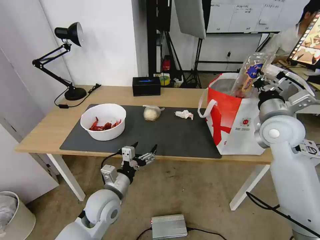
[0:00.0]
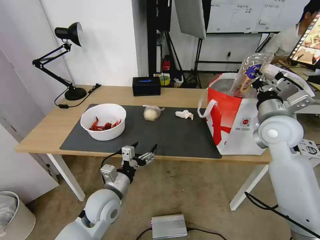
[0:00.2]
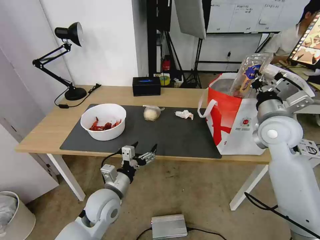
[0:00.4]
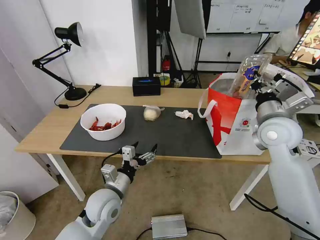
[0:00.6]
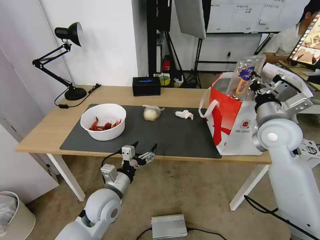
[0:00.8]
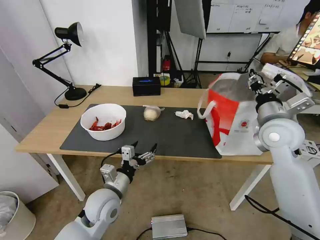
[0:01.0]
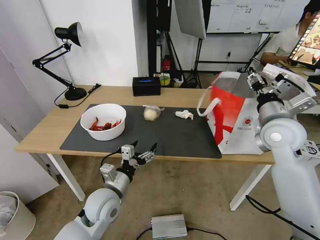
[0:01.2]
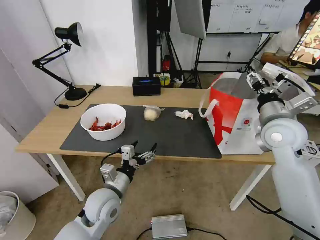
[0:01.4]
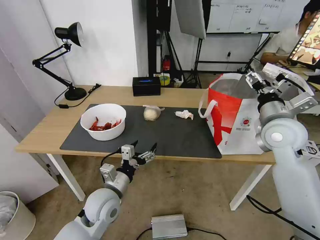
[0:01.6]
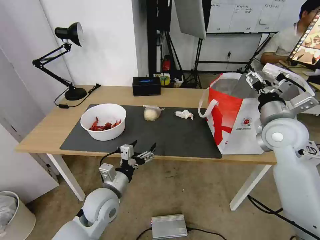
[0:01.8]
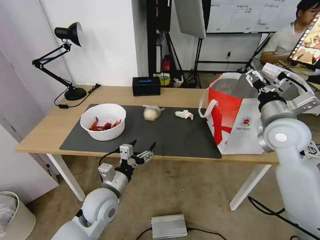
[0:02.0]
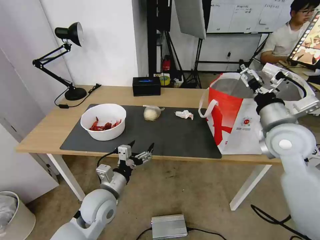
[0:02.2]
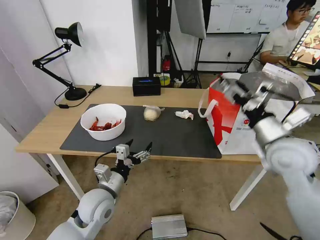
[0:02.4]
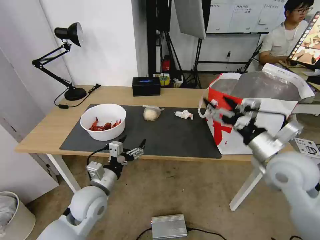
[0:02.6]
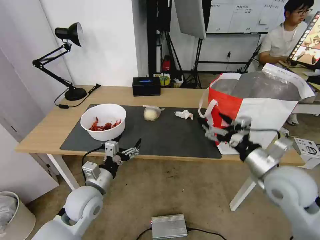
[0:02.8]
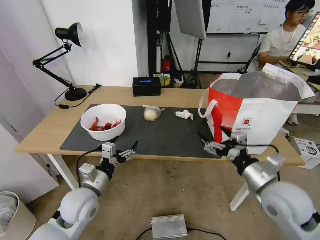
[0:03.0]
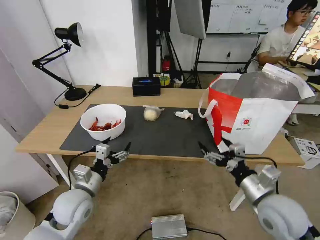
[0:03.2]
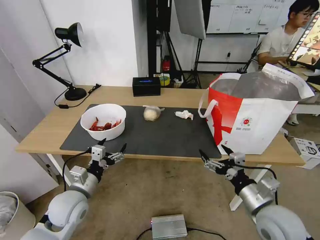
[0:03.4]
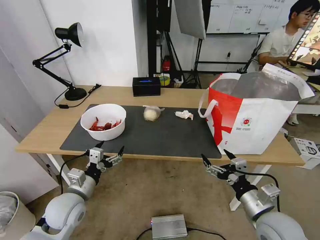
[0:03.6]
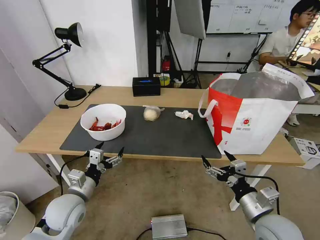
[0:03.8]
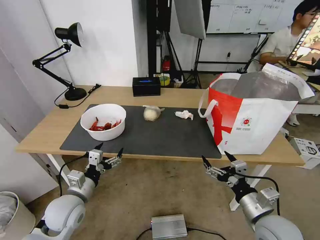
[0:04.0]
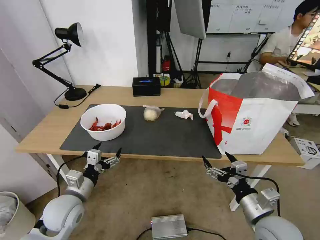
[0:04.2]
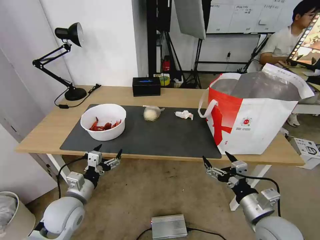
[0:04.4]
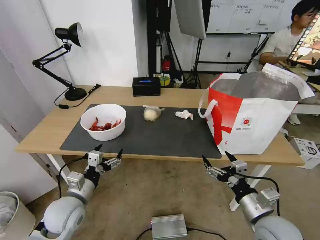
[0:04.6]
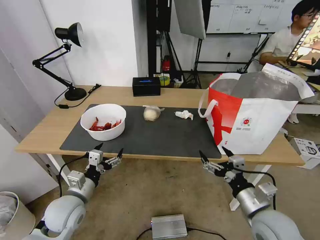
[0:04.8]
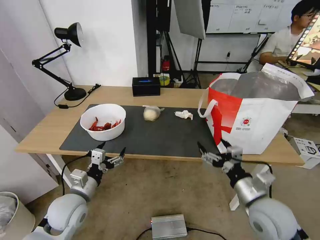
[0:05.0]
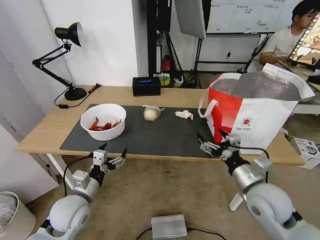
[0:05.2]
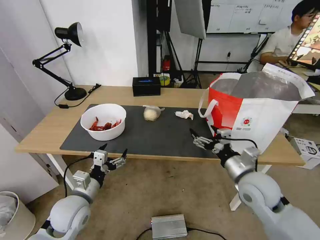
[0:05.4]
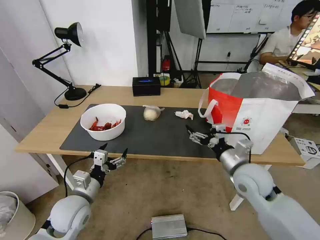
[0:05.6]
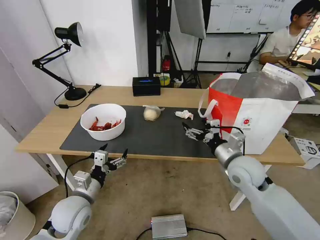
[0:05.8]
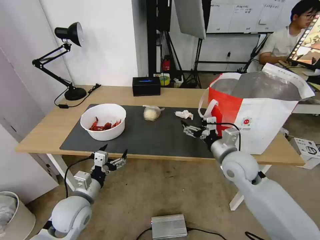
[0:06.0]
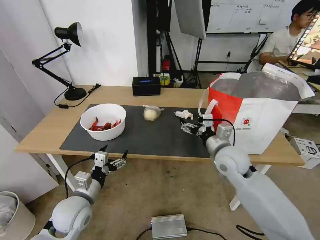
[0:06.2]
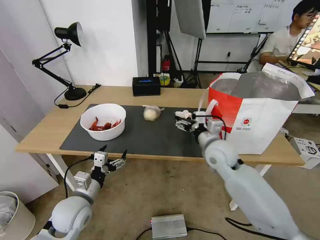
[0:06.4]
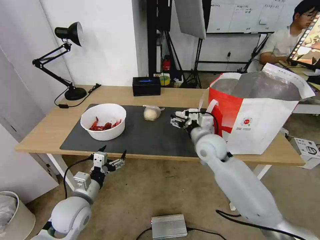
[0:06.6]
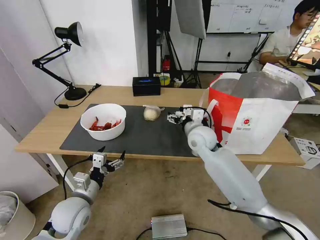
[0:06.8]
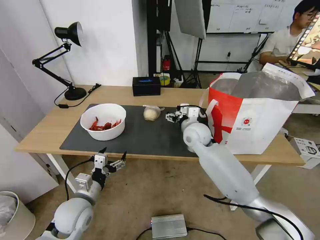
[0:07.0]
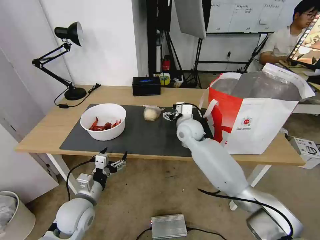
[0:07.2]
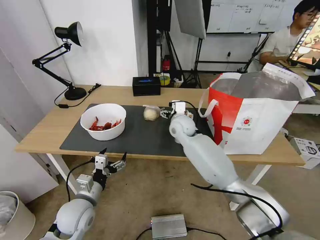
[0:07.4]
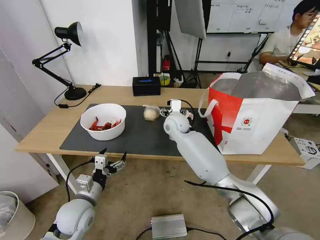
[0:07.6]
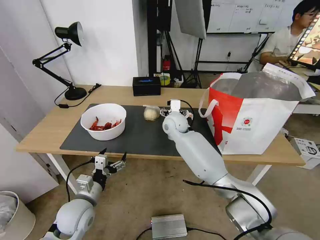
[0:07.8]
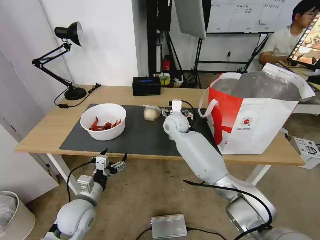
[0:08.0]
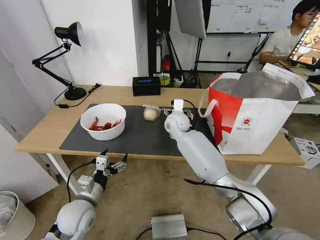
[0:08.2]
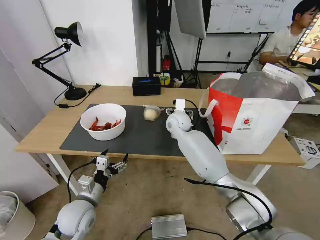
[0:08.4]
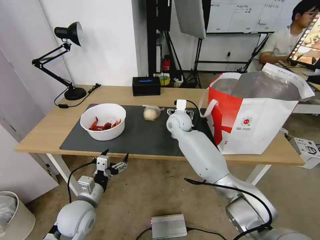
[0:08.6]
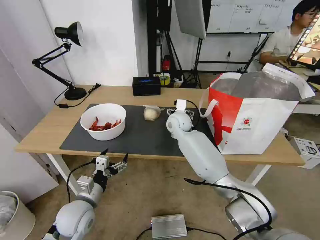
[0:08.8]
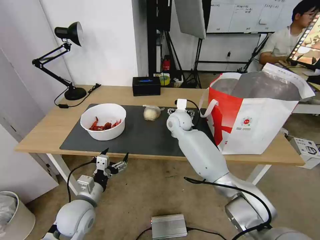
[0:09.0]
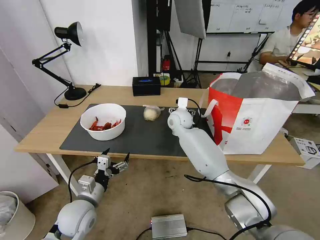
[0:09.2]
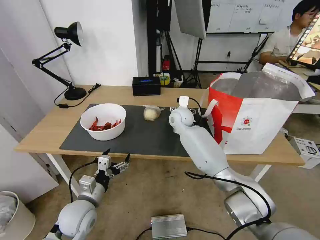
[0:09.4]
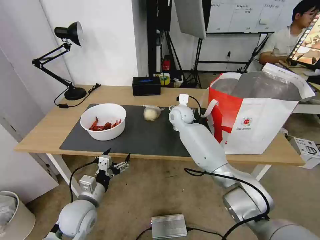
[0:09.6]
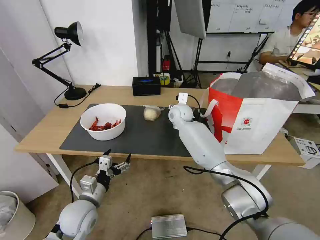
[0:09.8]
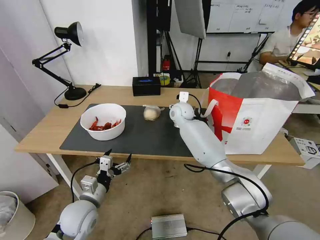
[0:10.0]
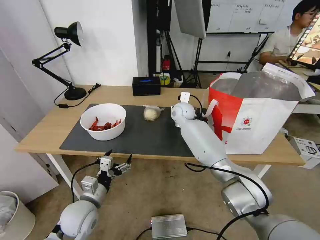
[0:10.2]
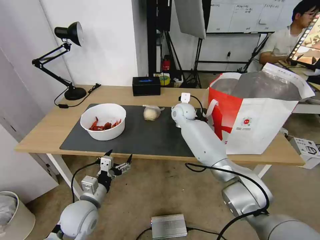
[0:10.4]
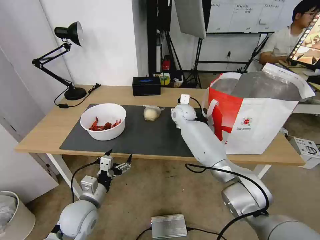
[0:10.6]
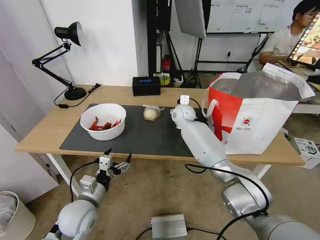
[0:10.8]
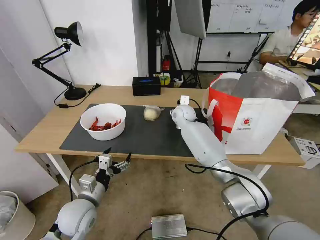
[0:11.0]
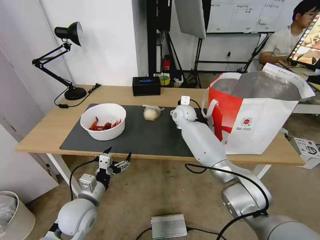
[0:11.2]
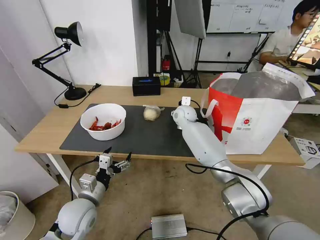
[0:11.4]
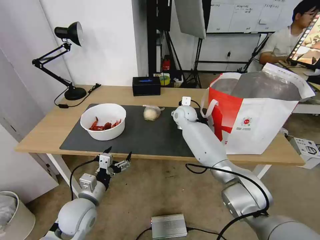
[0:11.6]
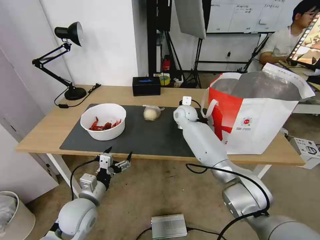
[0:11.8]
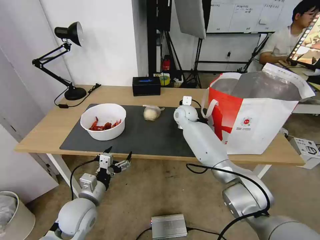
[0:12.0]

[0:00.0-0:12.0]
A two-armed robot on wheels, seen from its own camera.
Task of the whole recording: Pick up the trash from the table and place it into the takeout bag.
0:00.0 to 0:01.6: The right gripper opens its fingers.
0:01.6 to 0:03.0: The left gripper goes some 5 cm to the left; the right gripper is displaced backward and downward by approximately 15 cm.
0:03.0 to 0:04.4: The right gripper is displaced downward and backward by approximately 10 cm. The left gripper changes place by about 5 cm.
0:04.4 to 0:06.0: The right gripper goes approximately 15 cm forward.
0:06.0 to 0:07.6: The right gripper heads forward and to the left, covering roughly 25 cm.
0:07.6 to 0:09.0: The grippers stay close to where they were, moving slightly.
0:09.0 to 0:10.4: The right gripper goes about 5 cm forward.
0:10.4 to 0:12.0: The right gripper closes.

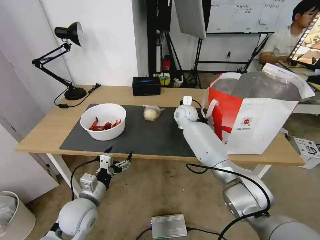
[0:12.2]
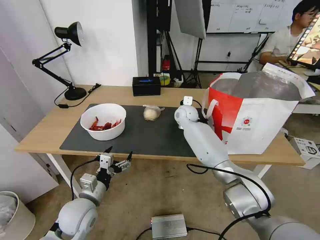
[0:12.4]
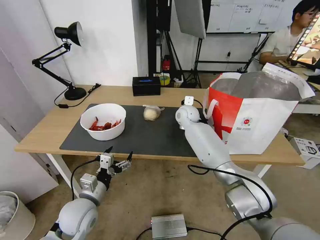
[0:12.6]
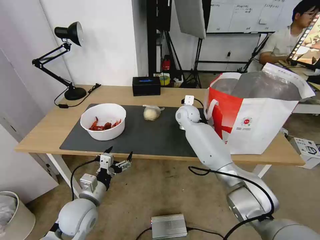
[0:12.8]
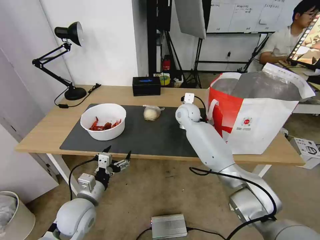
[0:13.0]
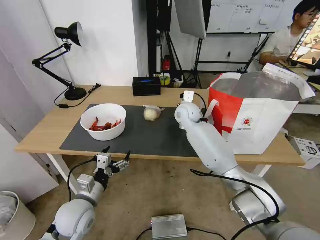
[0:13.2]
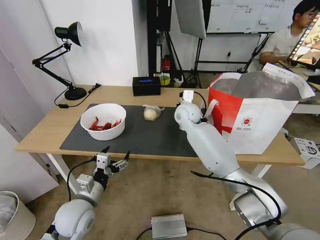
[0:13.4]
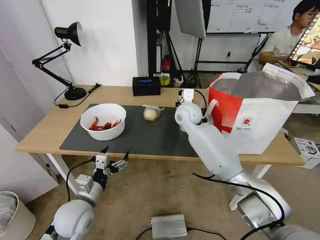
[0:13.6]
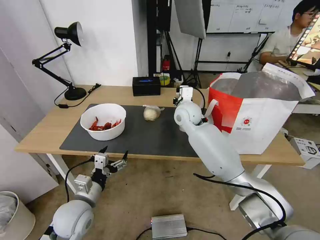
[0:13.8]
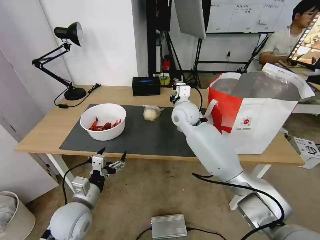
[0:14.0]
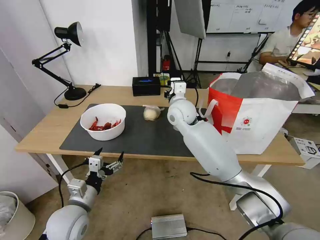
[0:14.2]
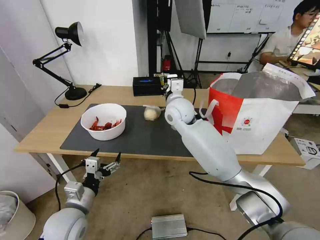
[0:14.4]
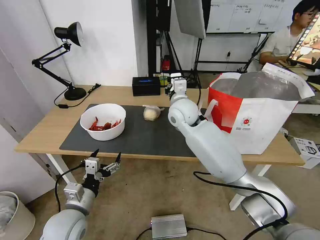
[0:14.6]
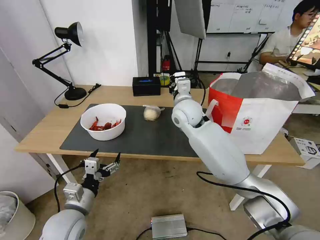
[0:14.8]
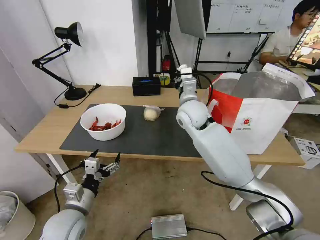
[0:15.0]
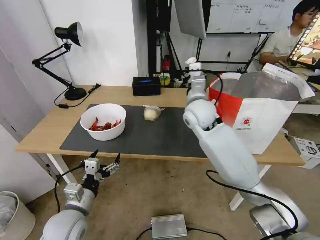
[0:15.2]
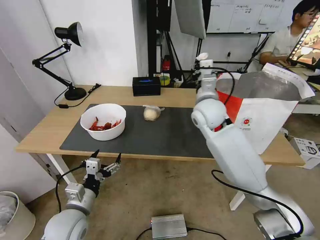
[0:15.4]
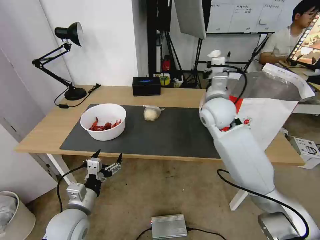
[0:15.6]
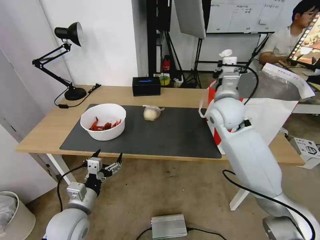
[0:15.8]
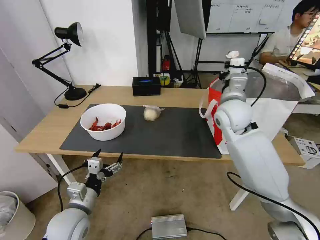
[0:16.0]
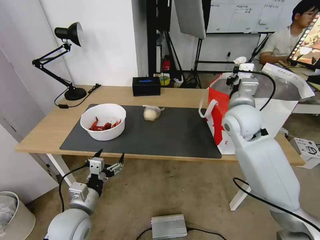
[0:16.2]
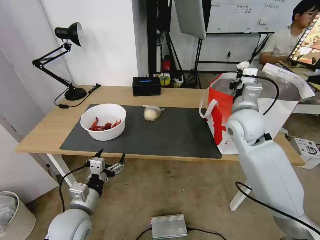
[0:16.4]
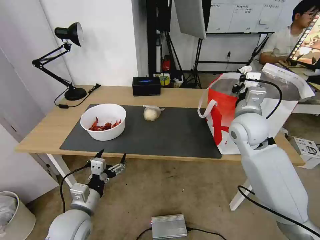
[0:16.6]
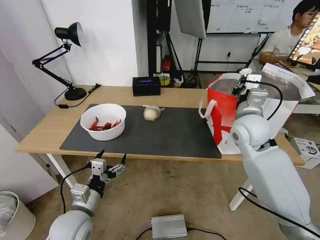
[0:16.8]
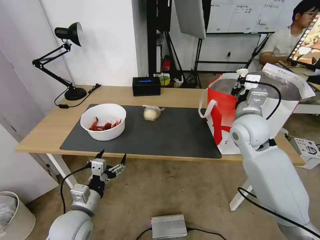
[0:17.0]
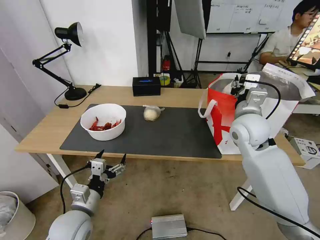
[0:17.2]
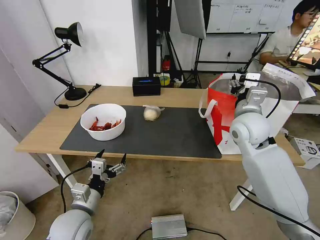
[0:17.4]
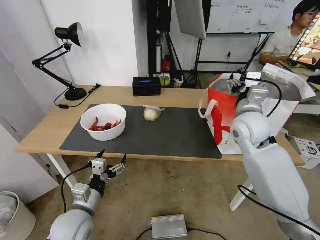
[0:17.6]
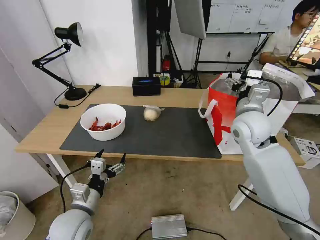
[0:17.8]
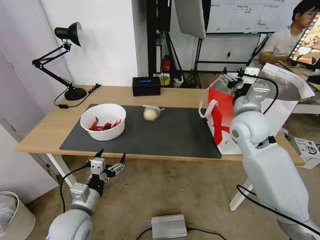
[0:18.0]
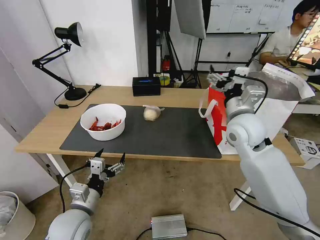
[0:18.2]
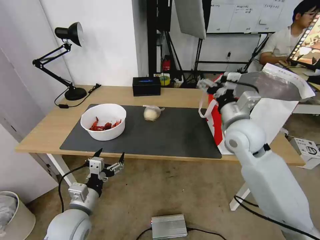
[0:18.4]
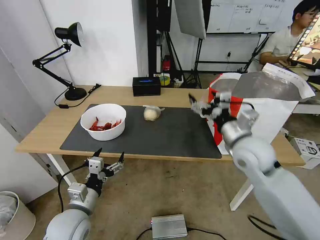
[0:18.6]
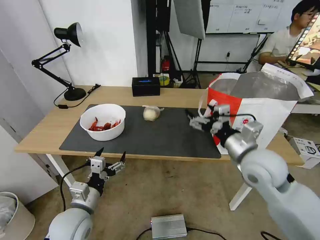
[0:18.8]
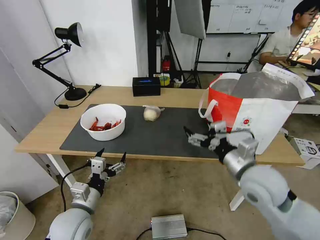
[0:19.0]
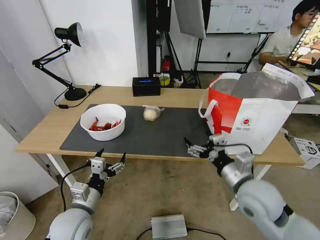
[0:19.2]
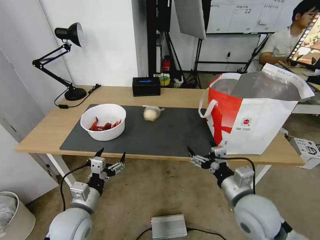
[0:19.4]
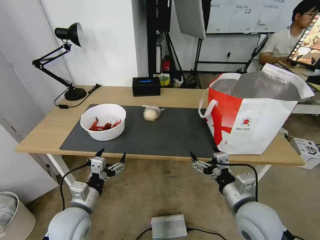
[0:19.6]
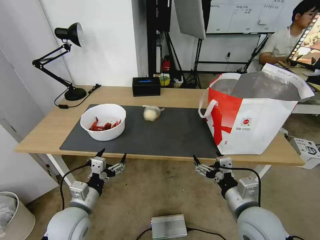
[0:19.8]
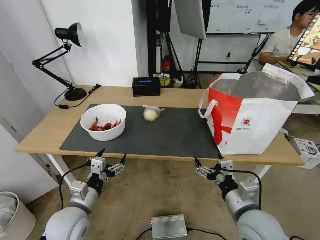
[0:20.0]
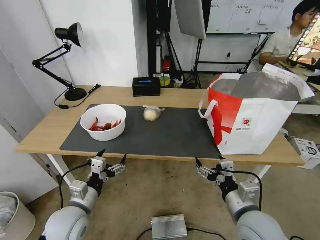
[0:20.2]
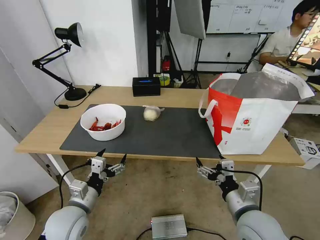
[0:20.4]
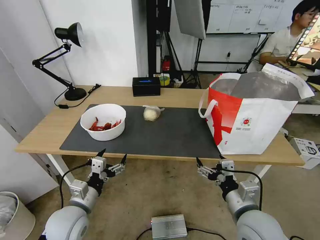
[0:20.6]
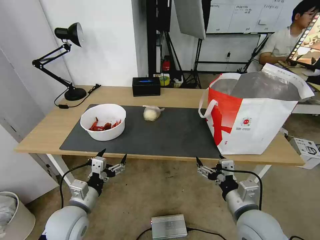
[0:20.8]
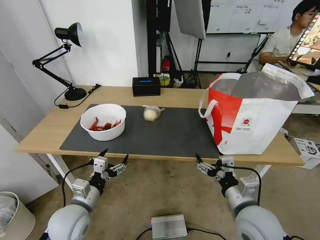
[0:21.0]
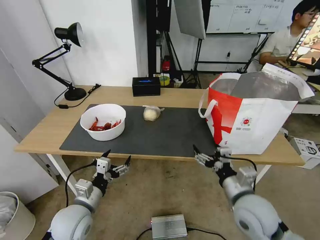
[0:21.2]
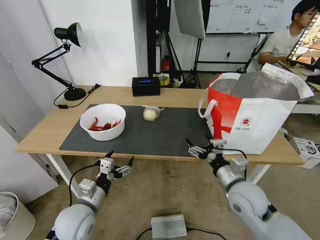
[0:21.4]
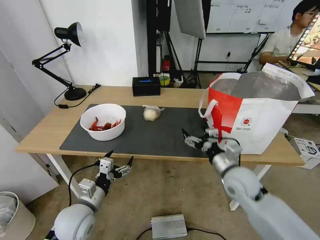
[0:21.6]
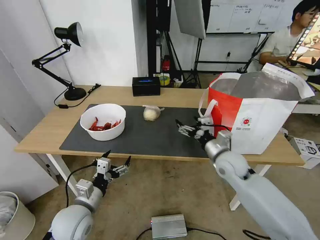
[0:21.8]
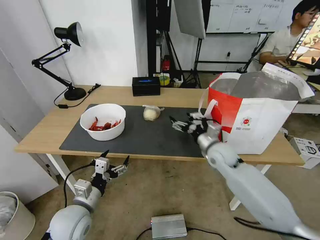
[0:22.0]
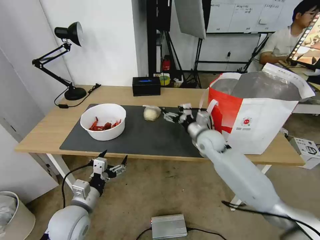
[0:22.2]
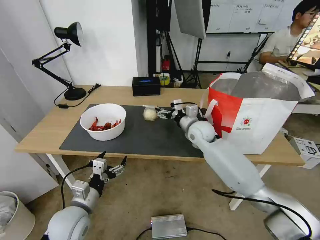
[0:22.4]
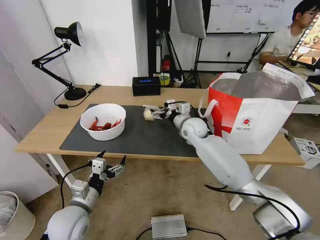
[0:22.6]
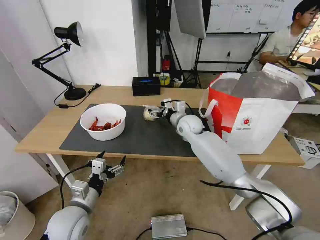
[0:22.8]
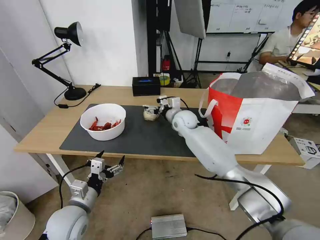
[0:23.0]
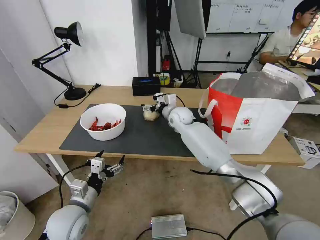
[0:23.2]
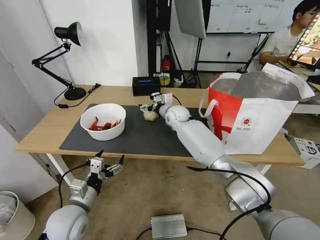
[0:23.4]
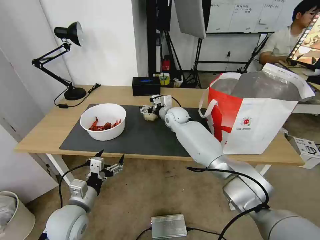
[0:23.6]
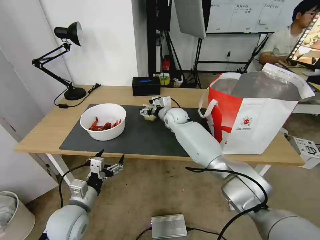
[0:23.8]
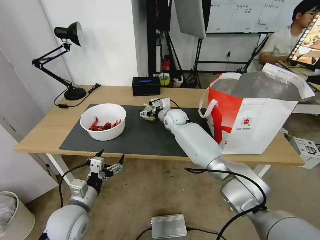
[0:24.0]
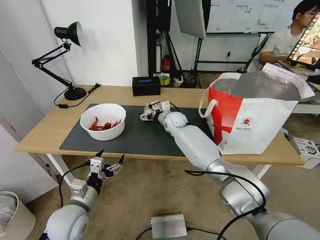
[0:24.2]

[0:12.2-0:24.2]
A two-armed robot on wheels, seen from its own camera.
Task of the whole recording: Pick up the trash from the table and place it into the takeout bag.
0:12.2 to 0:13.8: The right gripper travels backward and upward by approximately 10 cm, and closes.
0:13.8 to 0:15.2: The right gripper heads backward, covering roughly 5 cm.
0:15.2 to 0:16.6: The right gripper travels to the right and backward by some 15 cm.
0:16.6 to 0:18.2: The right gripper opens up.
0:18.2 to 0:19.8: The right gripper is displaced backward and downward by some 25 cm.
0:19.8 to 0:21.2: There are only small adjustments of the grippers.
0:21.2 to 0:22.6: The right gripper shifts roughly 30 cm forward.
0:22.6 to 0:24.2: The right gripper shifts about 10 cm forward and to the left.
